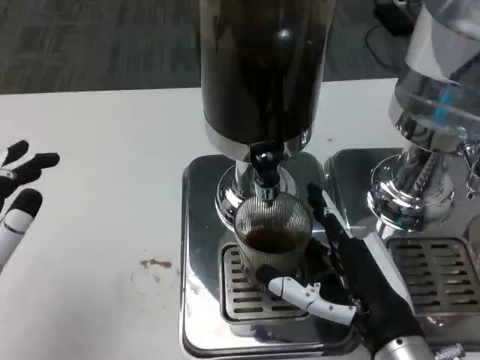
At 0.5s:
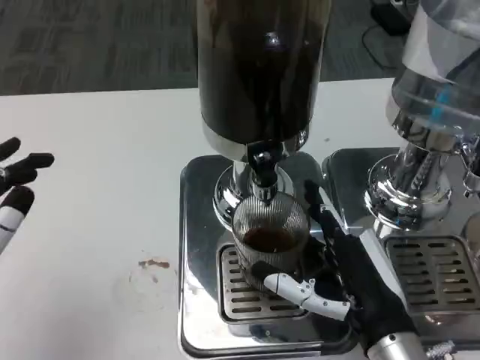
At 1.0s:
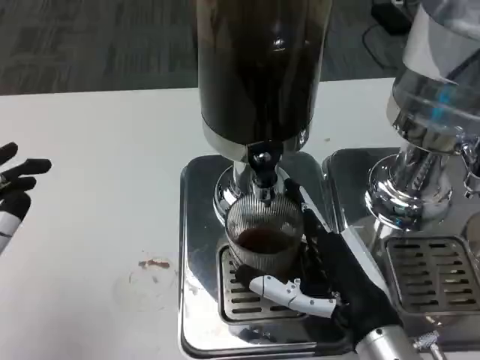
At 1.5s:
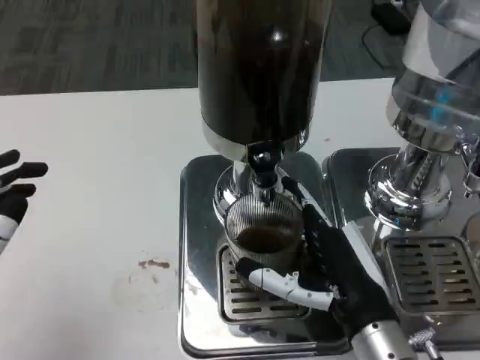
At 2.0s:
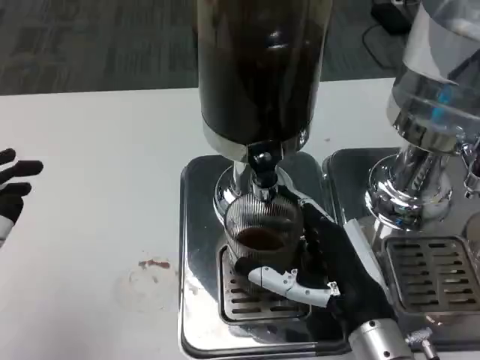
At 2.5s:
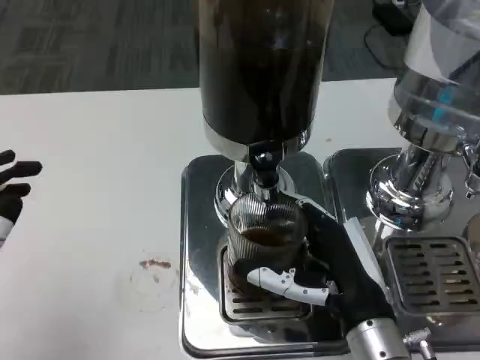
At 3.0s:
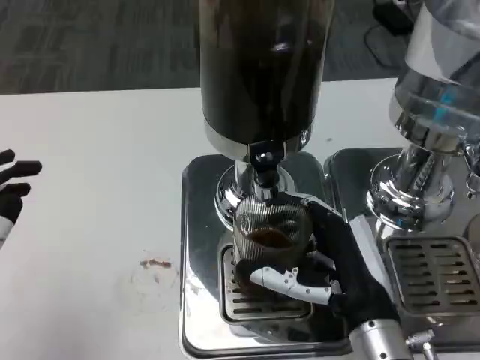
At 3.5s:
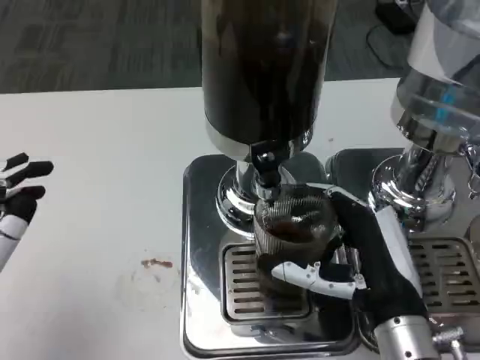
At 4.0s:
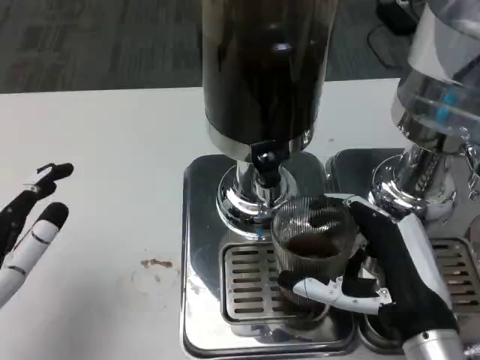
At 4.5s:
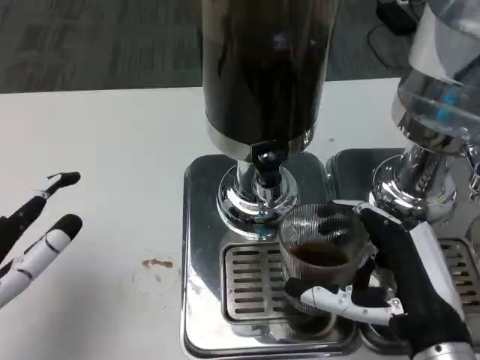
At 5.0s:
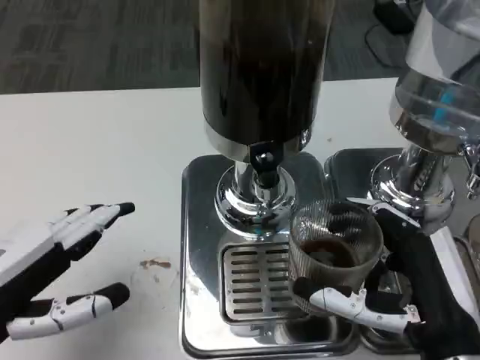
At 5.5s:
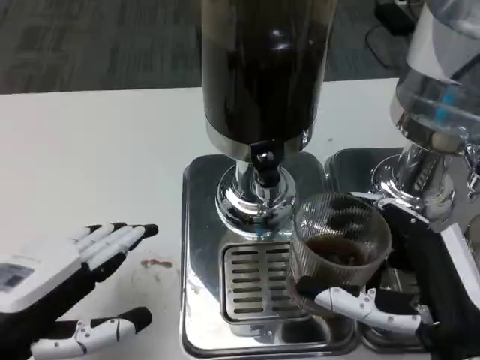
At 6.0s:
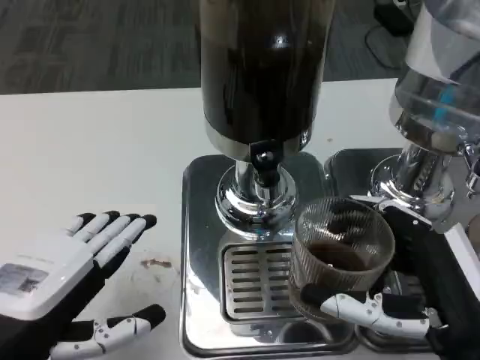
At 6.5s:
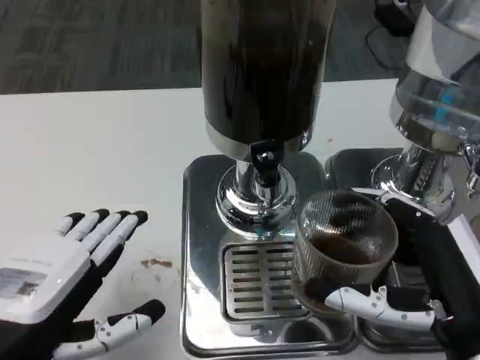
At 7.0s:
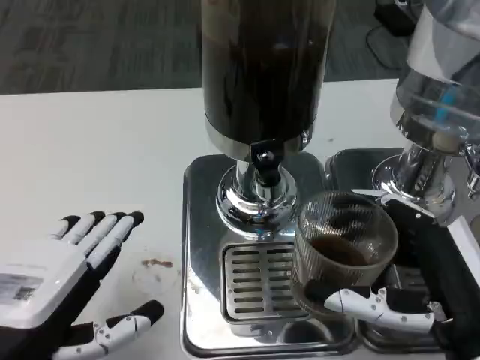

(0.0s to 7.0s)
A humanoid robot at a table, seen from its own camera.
Task of the whole recording: Grasp the cup under the faucet to collect the drink, then remove the cup.
0.0s - 2.0s: The hands stay close to where they were, moving slightly.
3.5s - 5.0s: The right hand ends up about 5 cm from where it was.
5.0s - 7.0s: The left hand travels to the right by approximately 5 cm.
